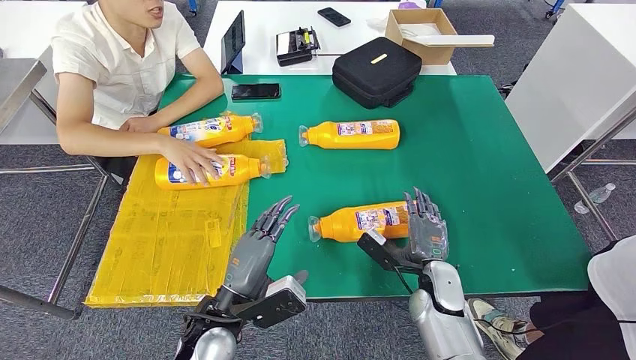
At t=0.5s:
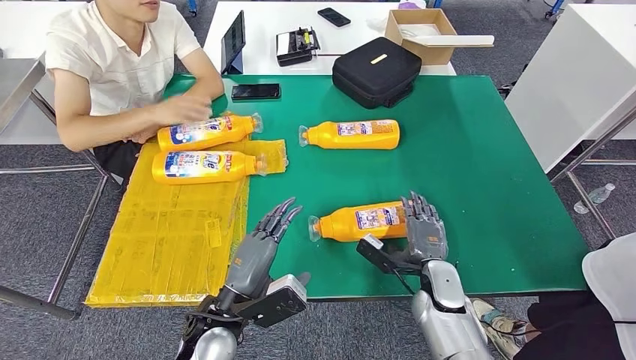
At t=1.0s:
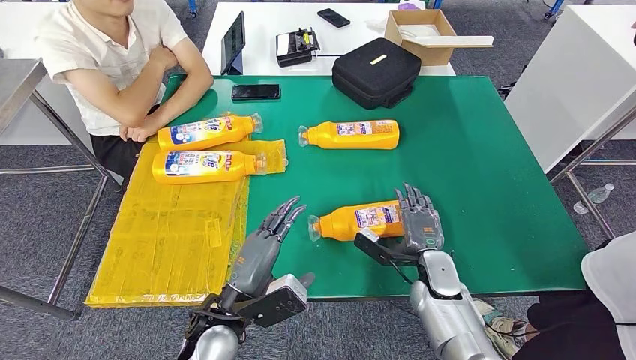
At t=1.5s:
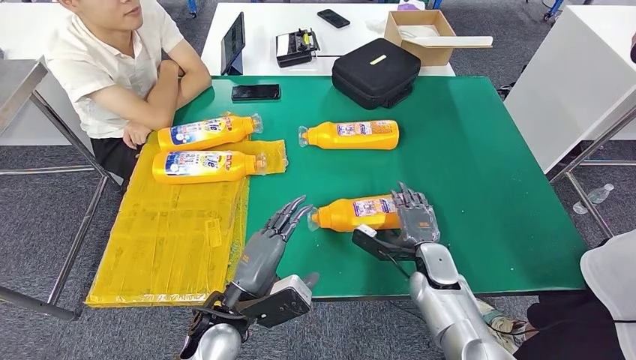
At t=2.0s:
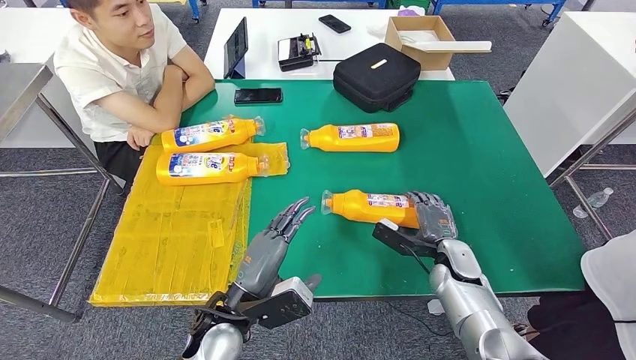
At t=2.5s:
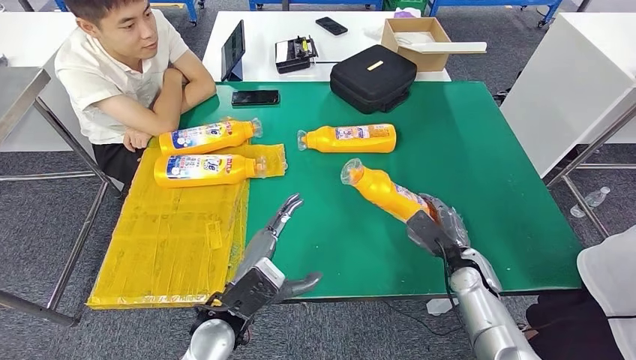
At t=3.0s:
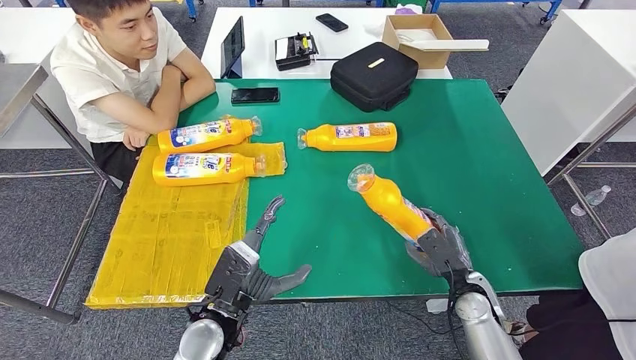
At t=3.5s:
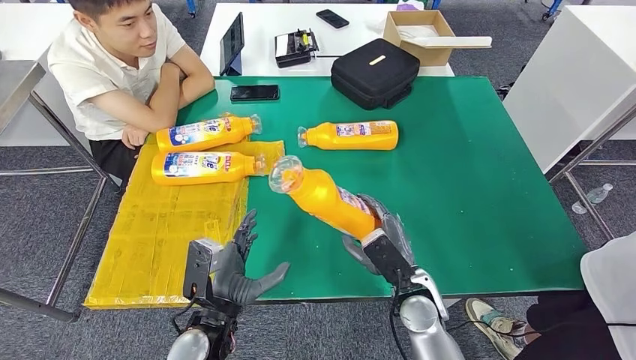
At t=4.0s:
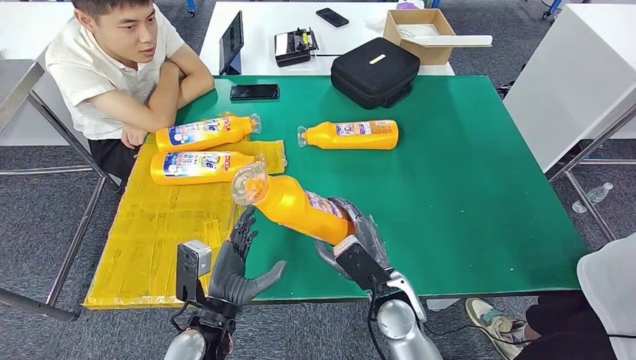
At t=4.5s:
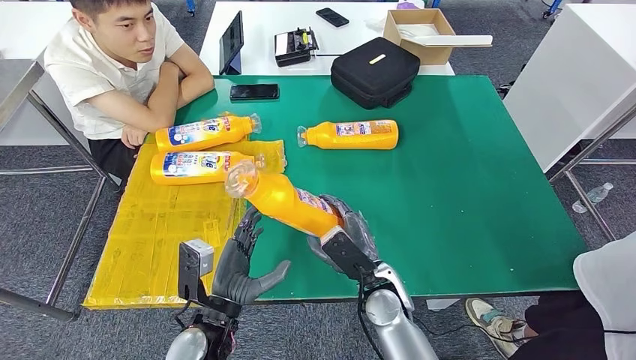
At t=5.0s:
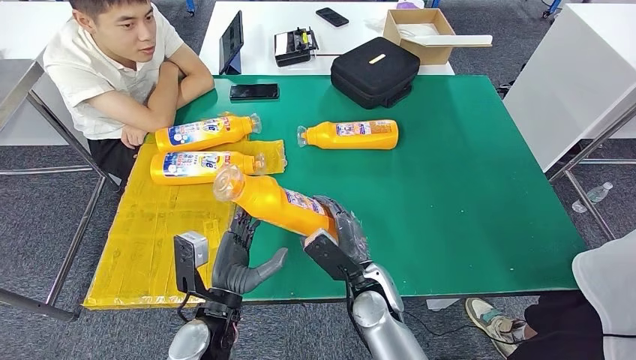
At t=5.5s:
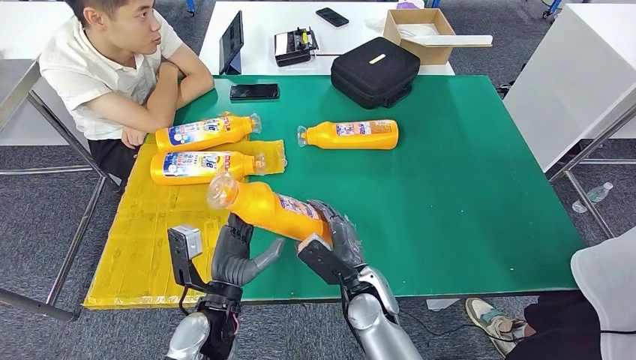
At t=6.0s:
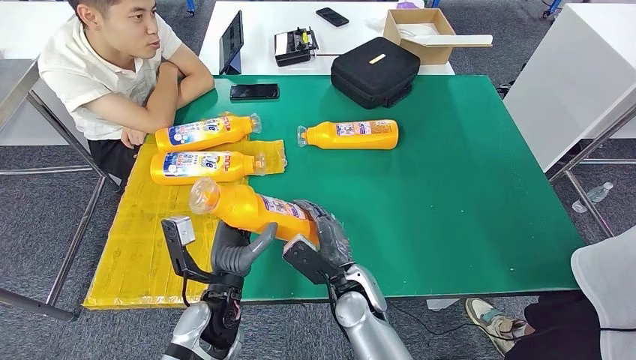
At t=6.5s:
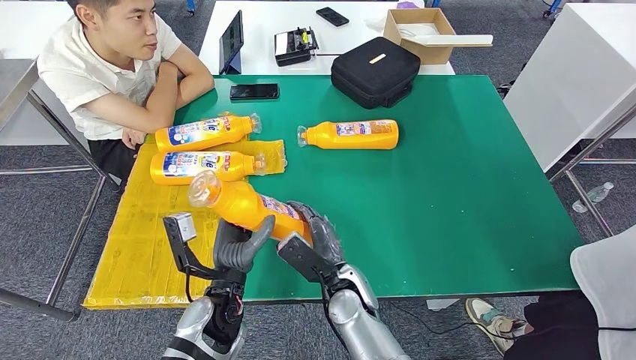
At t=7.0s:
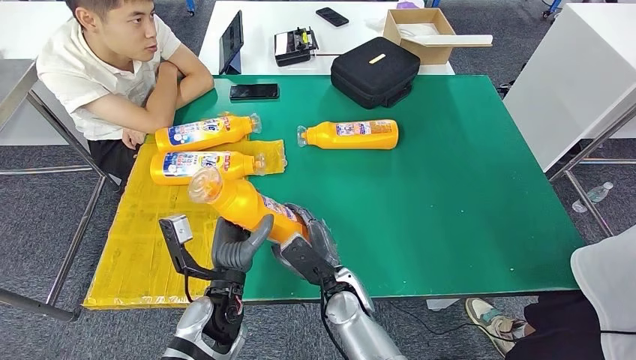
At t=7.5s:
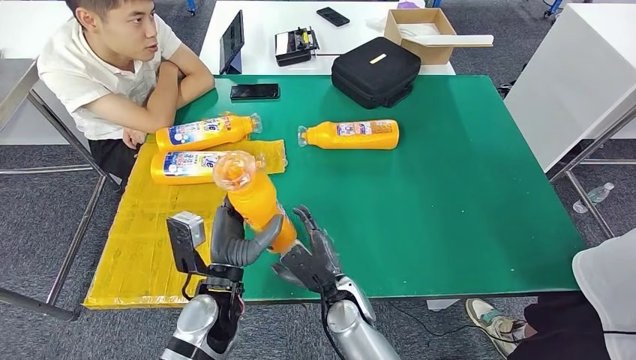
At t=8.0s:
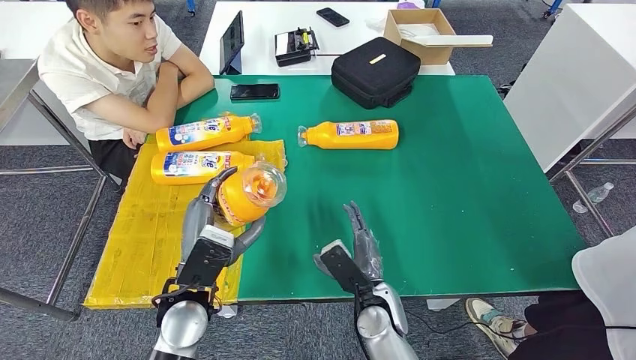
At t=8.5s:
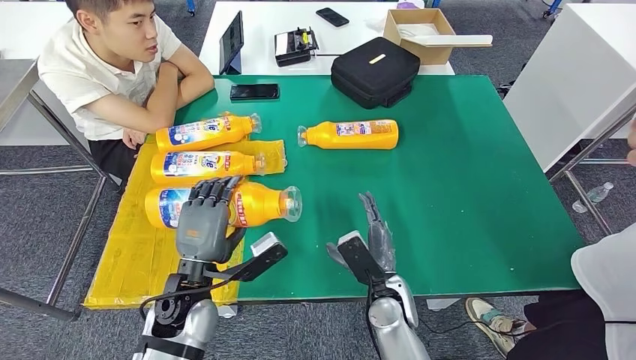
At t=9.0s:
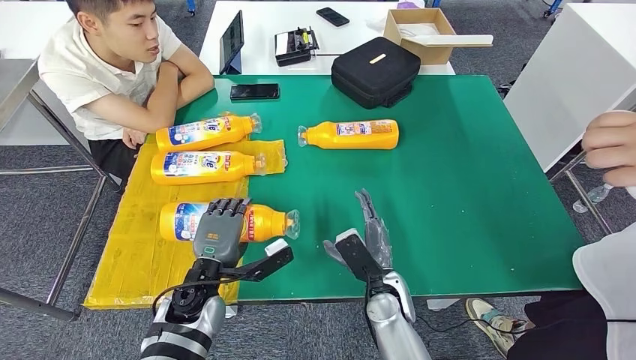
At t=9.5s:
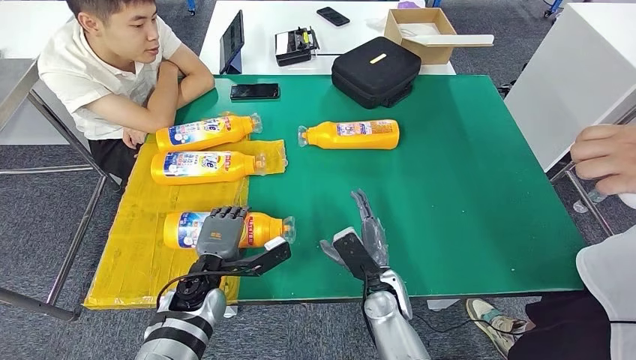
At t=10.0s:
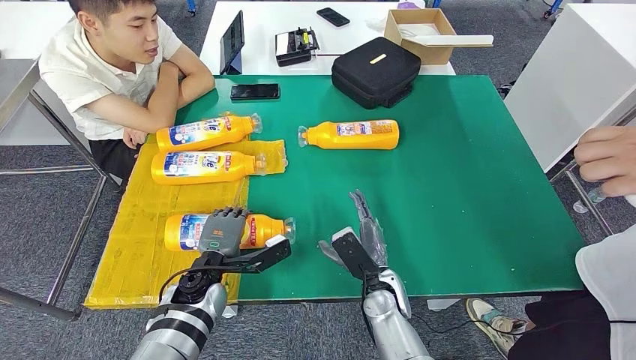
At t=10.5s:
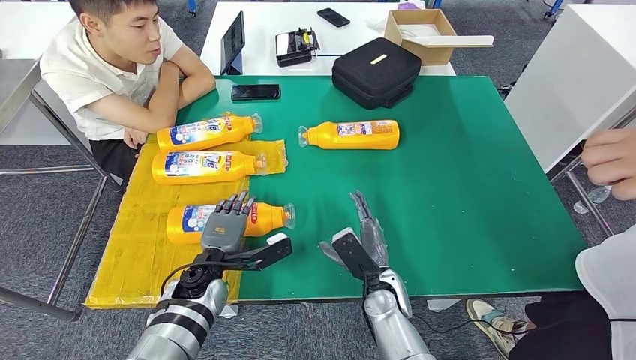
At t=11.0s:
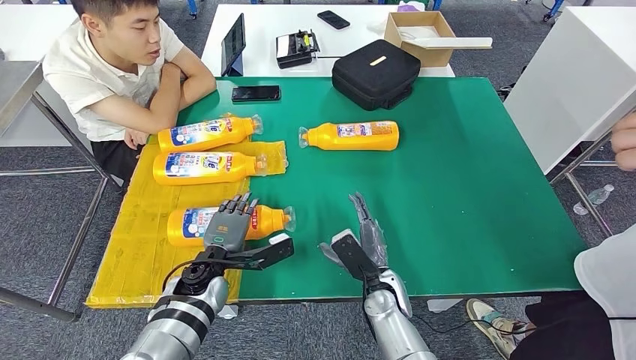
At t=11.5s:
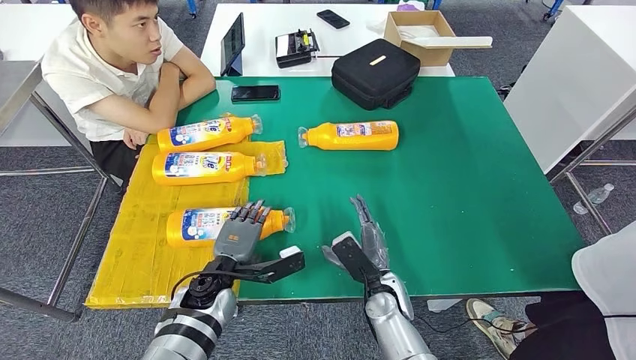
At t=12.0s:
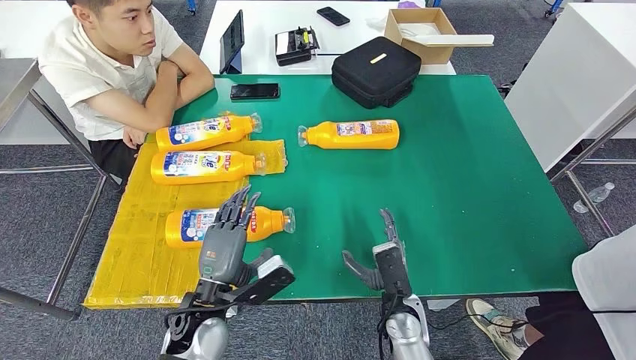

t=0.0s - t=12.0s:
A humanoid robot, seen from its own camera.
Step, t=2.5s - t=5.0s: Pick up the bottle from the table.
Step, t=5.5s - t=10.5s: Flip the bottle to face forward.
t=4.0s - t=6.0s: The right hand heads to the left, covering some 5 cm.
t=6.0s - t=8.0s: The right hand changes place by some 5 cm, while the left hand changes place by approximately 5 cm.
t=8.0s - t=10.0s: The left hand goes about 10 cm downward and forward.
t=10.0s - t=12.0s: The left hand heads backward, covering approximately 10 cm.

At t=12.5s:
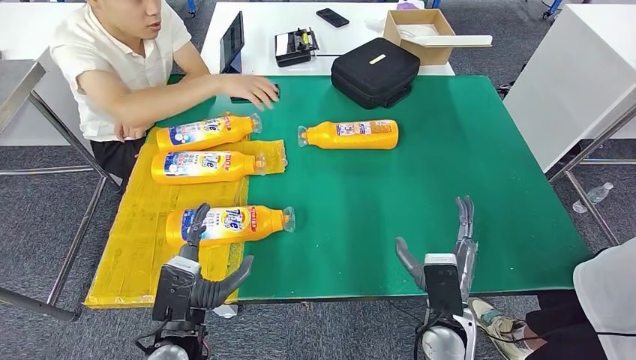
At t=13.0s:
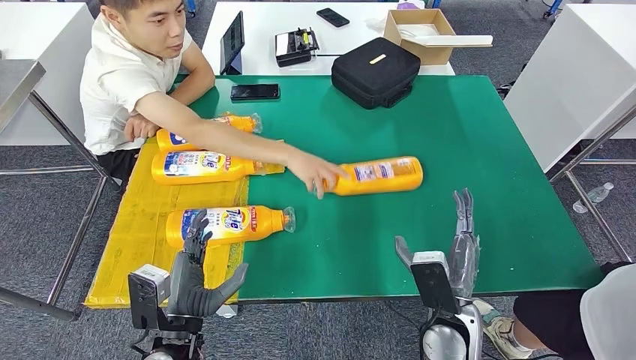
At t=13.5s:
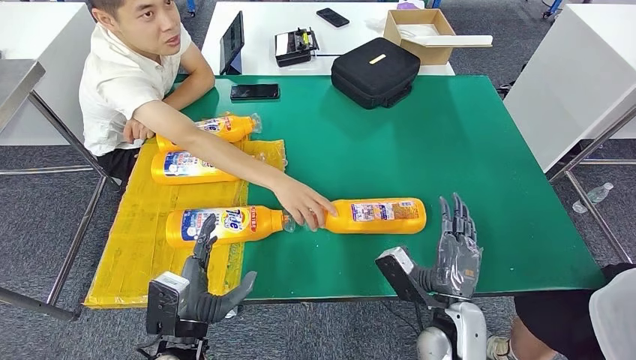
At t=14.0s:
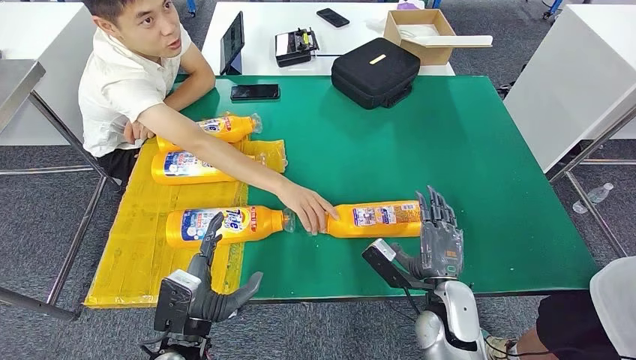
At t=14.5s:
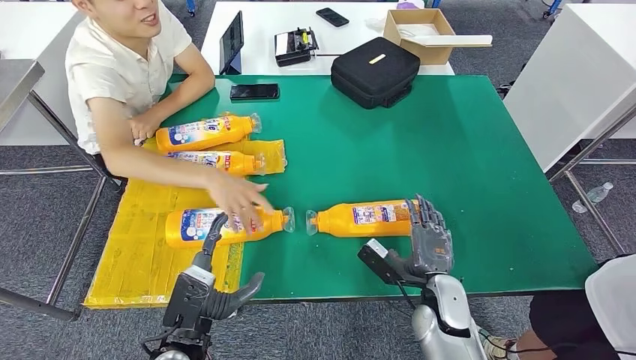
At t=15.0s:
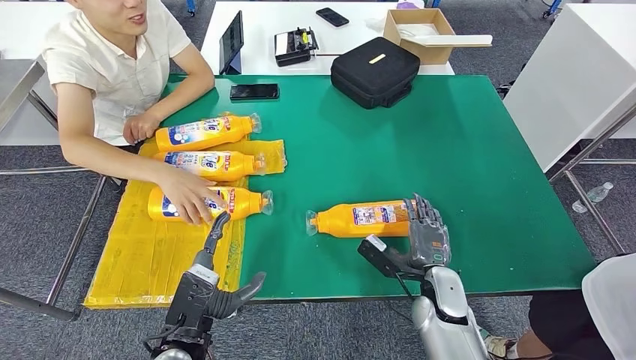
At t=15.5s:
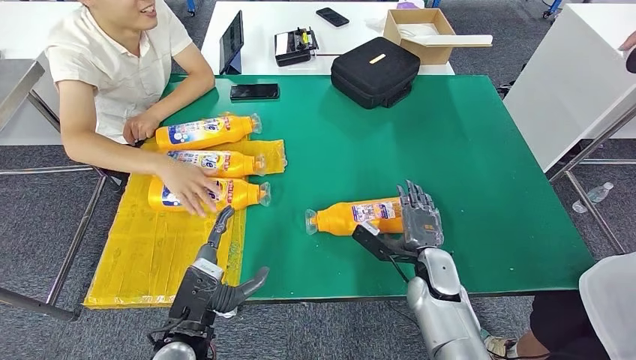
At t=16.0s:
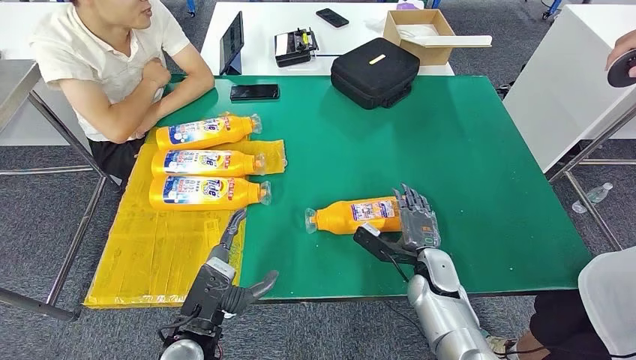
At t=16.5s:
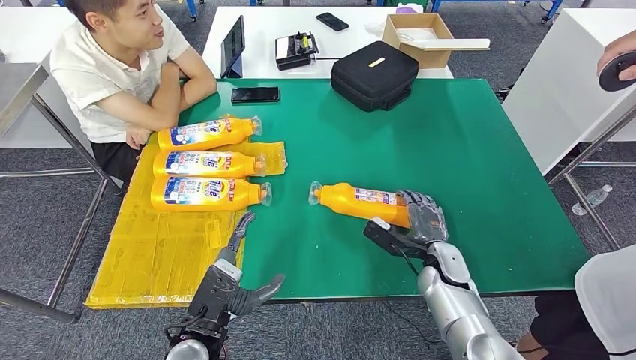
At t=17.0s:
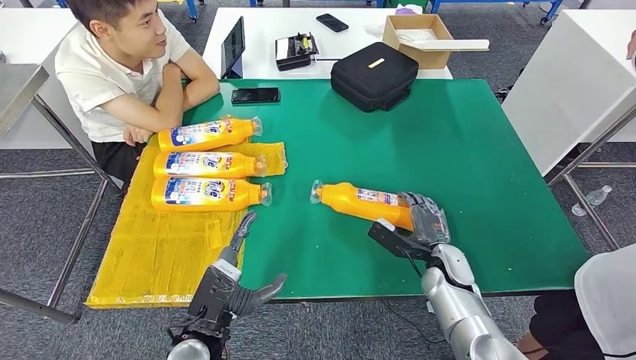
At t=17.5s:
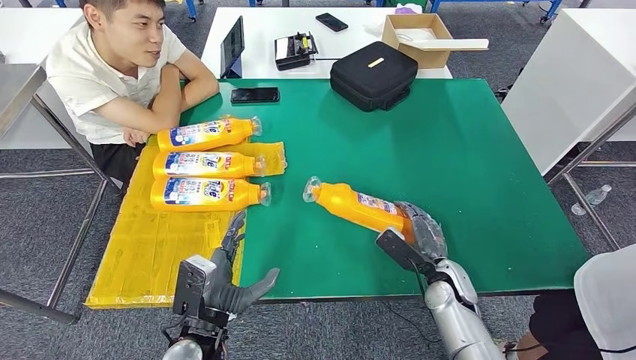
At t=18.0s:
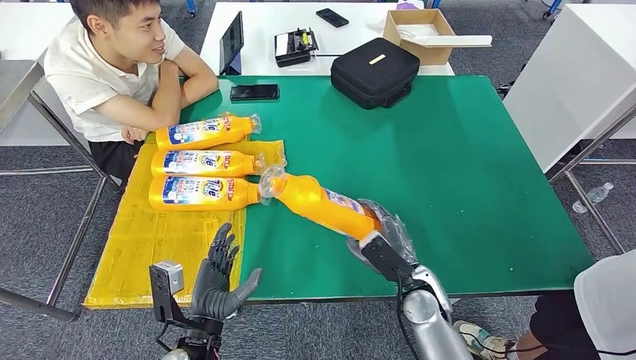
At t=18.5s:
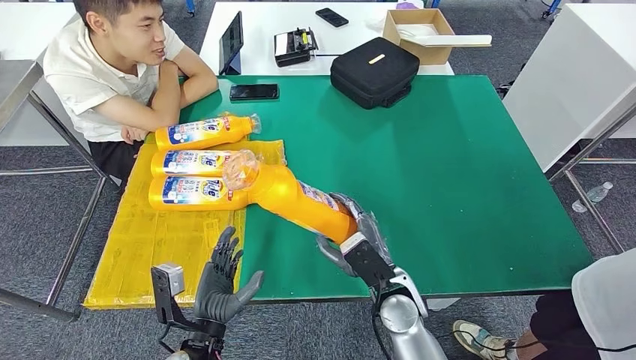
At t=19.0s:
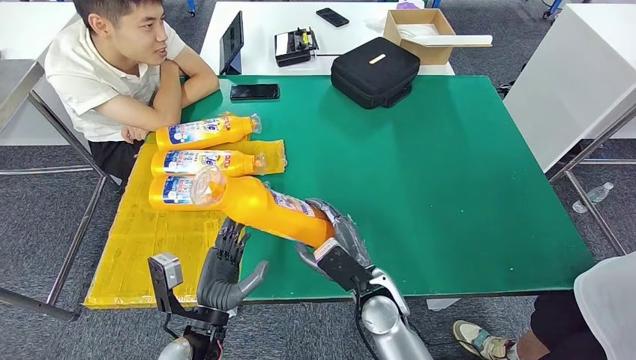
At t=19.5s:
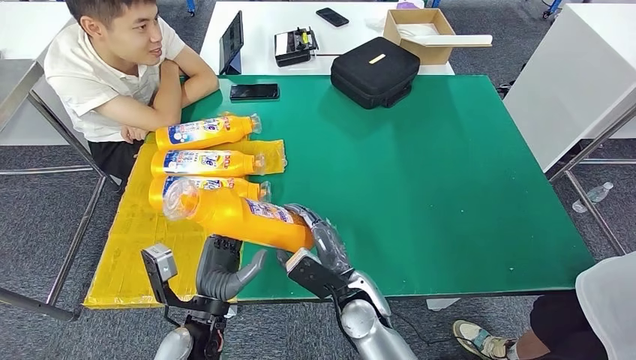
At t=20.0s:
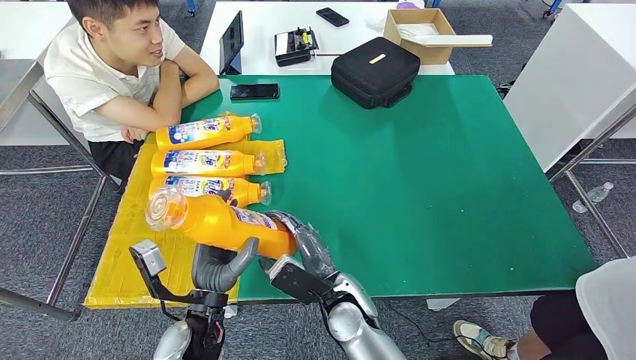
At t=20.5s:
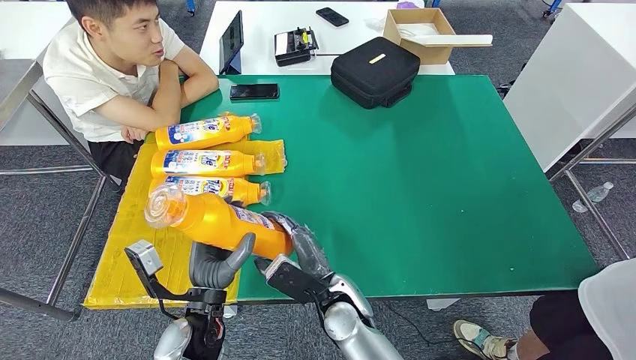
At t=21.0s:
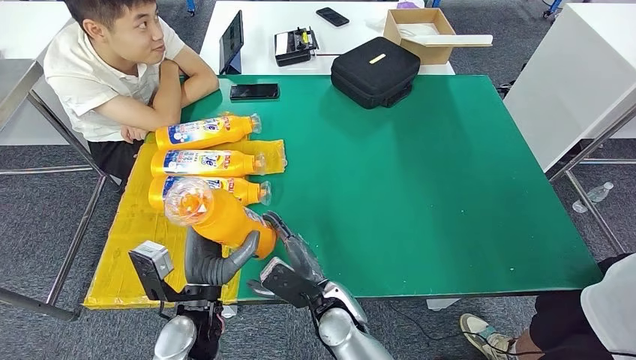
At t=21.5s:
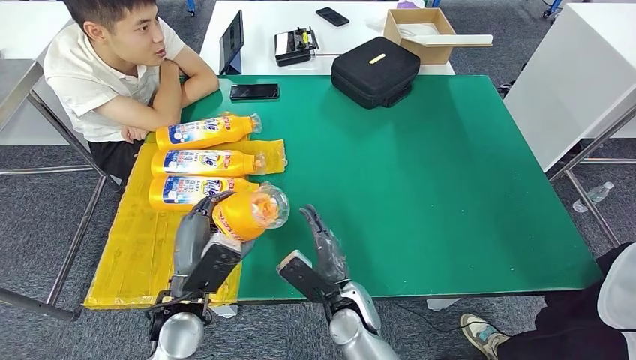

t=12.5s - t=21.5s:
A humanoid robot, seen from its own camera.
Step, t=15.5s - t=19.0s: Pick up the bottle from the table.
t=12.5s - t=14.5s: The right hand ends up about 5 cm from where it was.
t=19.5s - t=21.5s: The left hand ends up some 5 cm from where it was.
